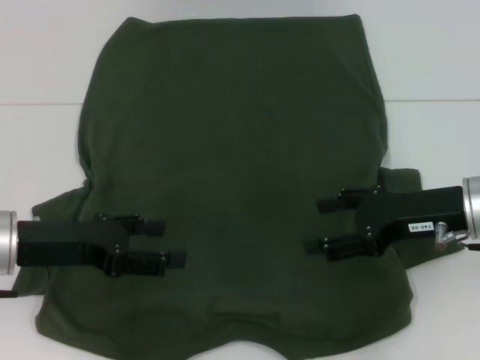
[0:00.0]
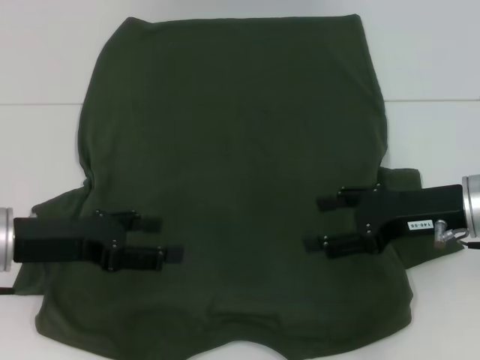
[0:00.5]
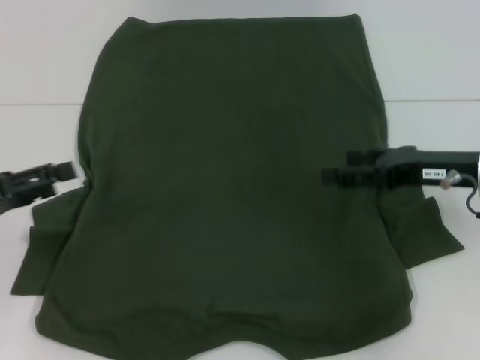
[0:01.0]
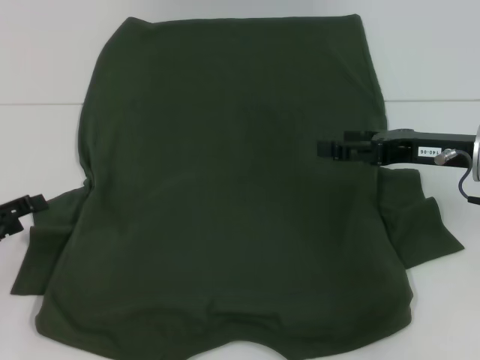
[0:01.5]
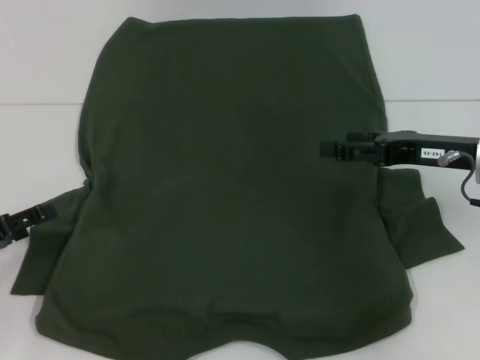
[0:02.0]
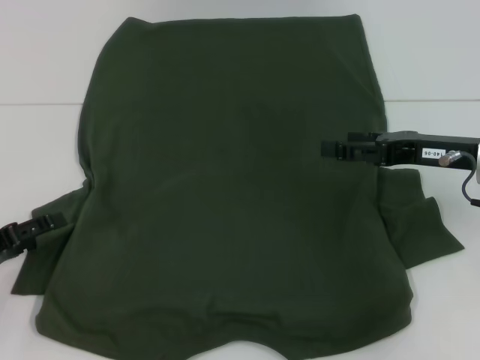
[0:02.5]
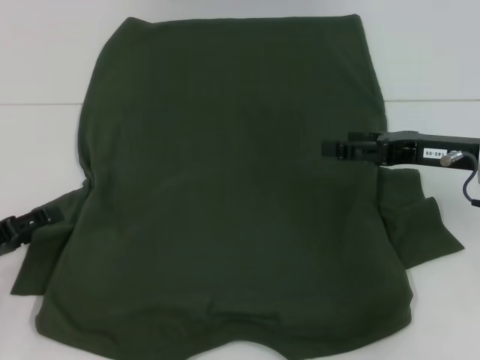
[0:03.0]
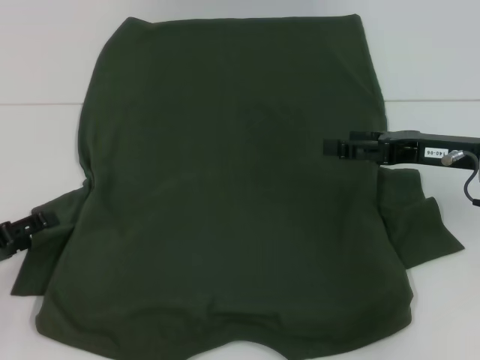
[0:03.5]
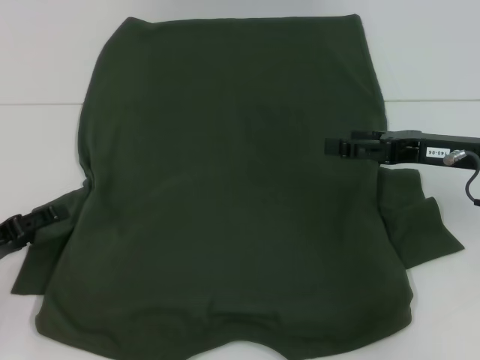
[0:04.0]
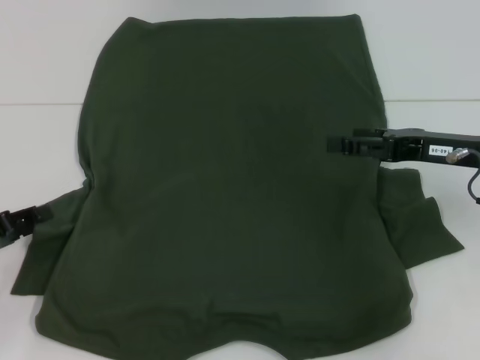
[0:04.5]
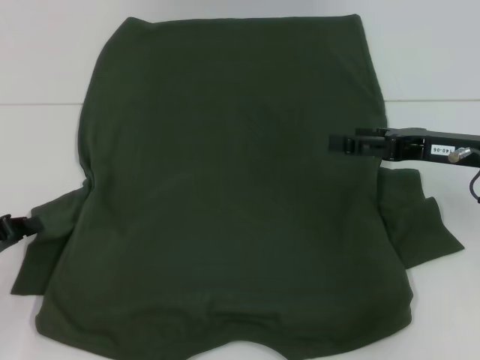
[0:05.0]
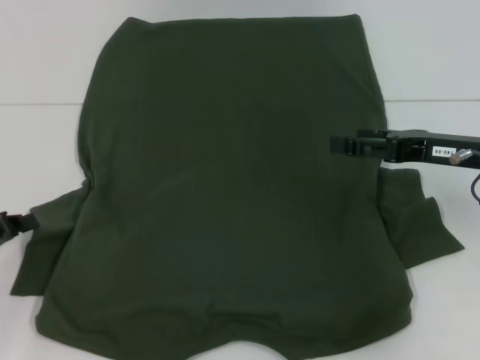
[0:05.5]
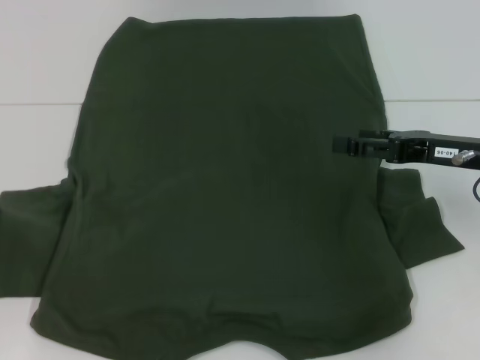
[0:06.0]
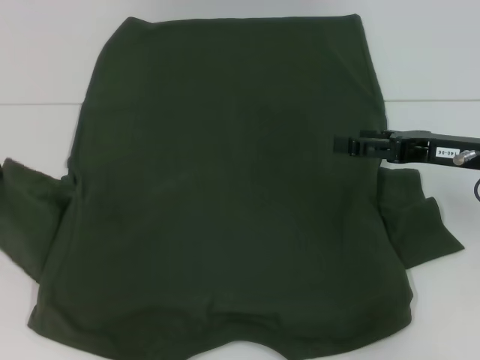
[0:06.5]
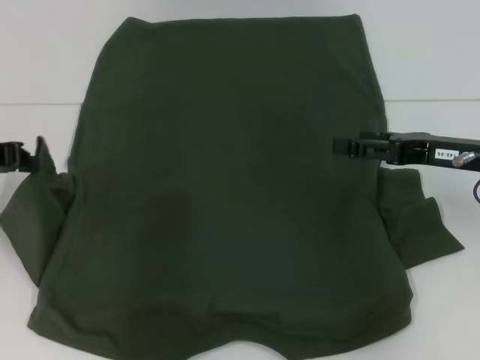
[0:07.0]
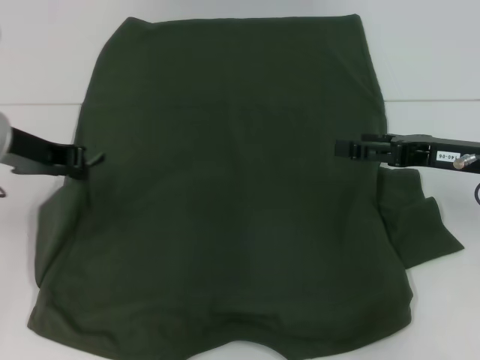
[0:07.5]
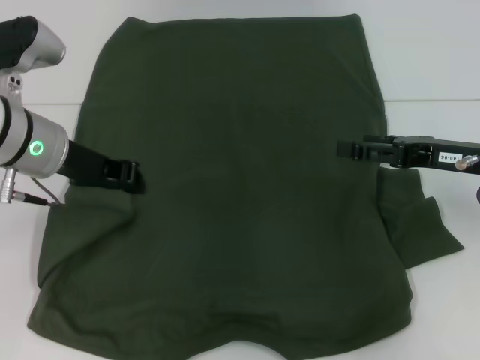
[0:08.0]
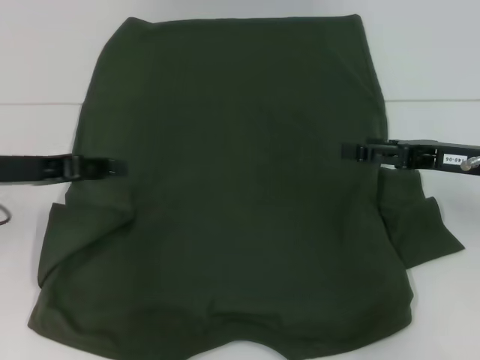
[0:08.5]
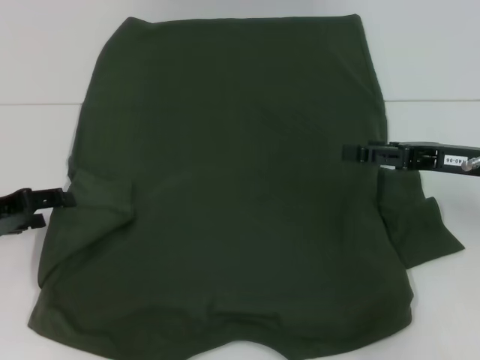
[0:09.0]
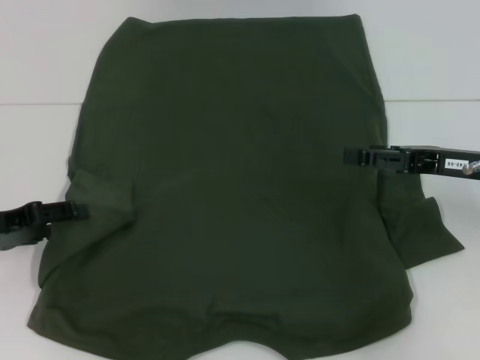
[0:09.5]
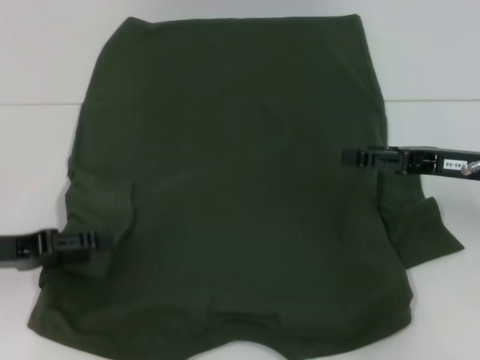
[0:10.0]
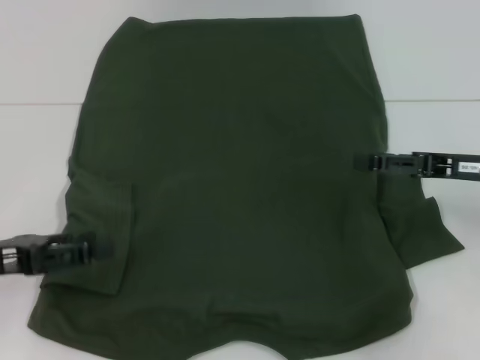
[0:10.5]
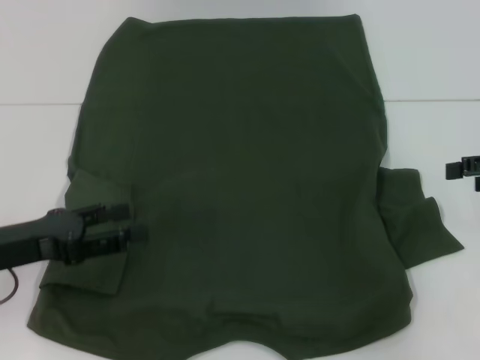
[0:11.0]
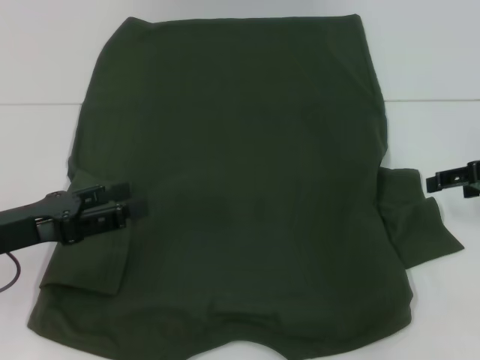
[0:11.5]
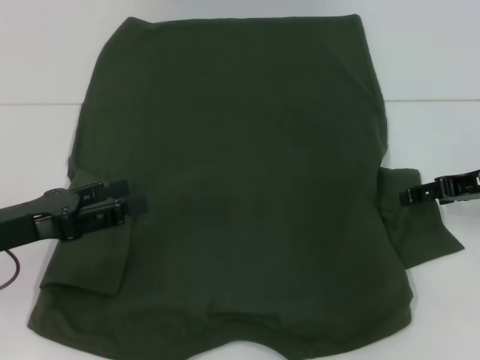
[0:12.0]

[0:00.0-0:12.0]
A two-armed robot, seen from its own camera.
Step, 0:00.0 to 0:10.5: Fold the bottom left sleeve with your left hand.
0:00.0 to 0:02.0: The left gripper heads to the left and downward, covering roughly 10 cm.
0:02.0 to 0:04.0: Neither gripper changes place.
0:04.0 to 0:06.0: The left gripper shifts by some 5 cm, and closes its fingers.
0:06.0 to 0:08.0: The left gripper goes about 20 cm to the right, forward and upward.
0:08.0 to 0:10.0: The left gripper goes some 15 cm to the left, backward and downward, and opens its fingers.
0:10.0 to 0:12.0: The right gripper reaches some 10 cm to the right, then returns.

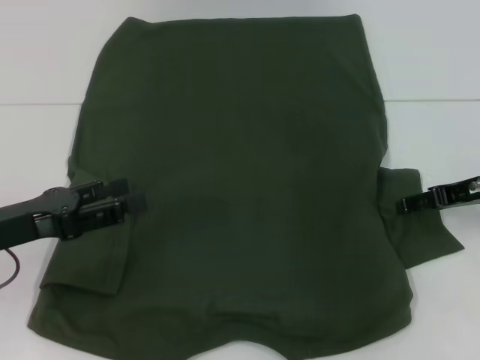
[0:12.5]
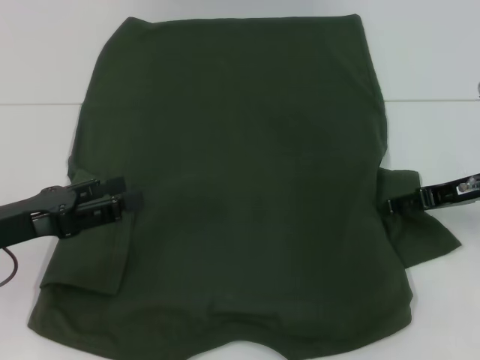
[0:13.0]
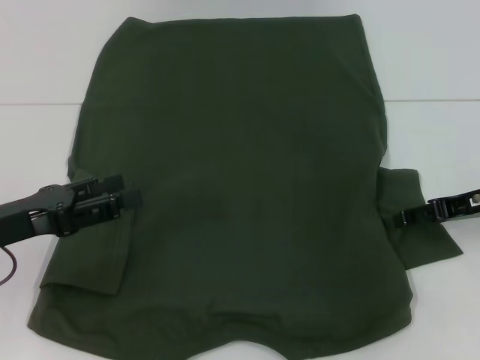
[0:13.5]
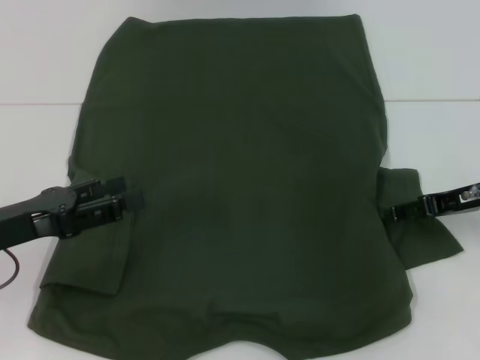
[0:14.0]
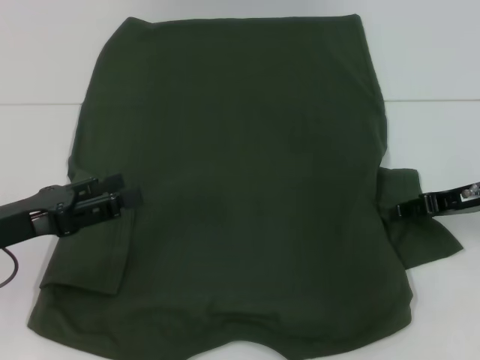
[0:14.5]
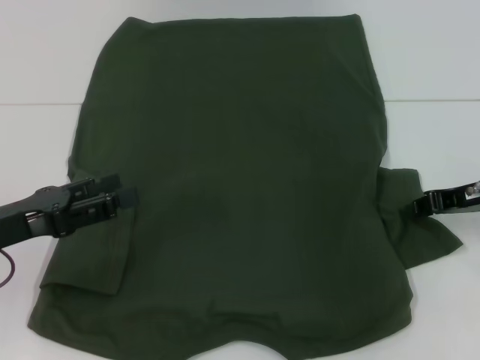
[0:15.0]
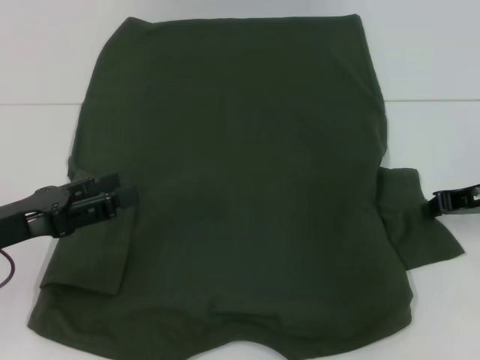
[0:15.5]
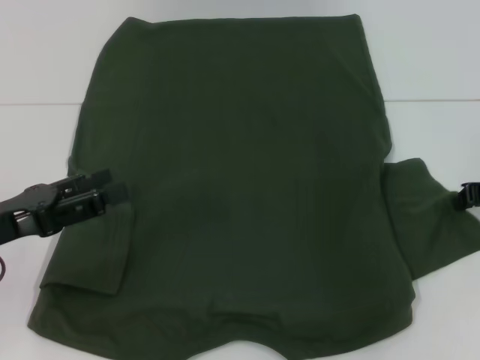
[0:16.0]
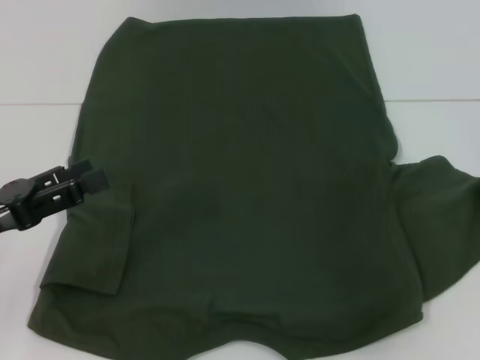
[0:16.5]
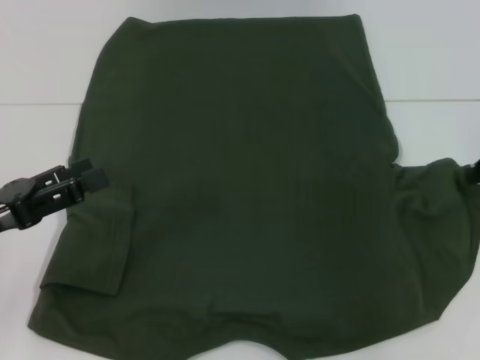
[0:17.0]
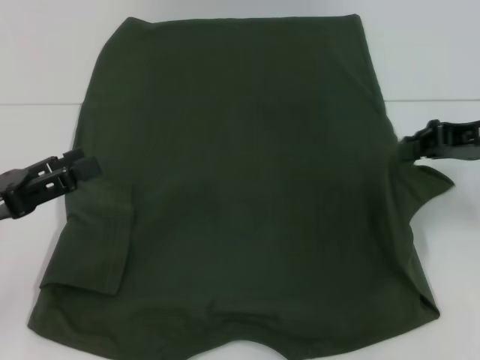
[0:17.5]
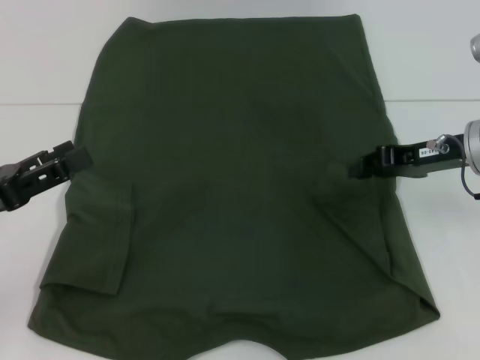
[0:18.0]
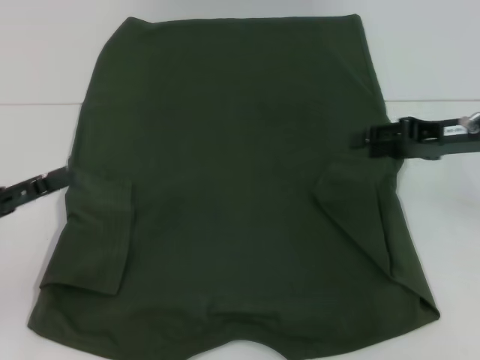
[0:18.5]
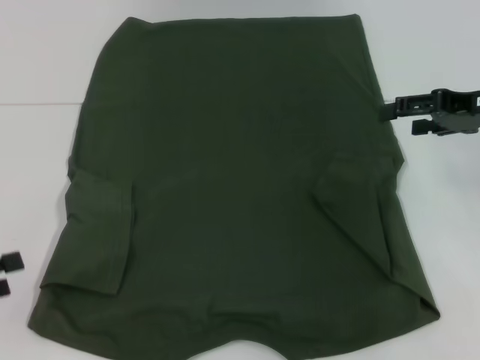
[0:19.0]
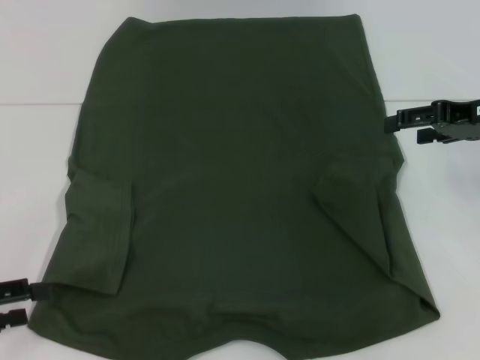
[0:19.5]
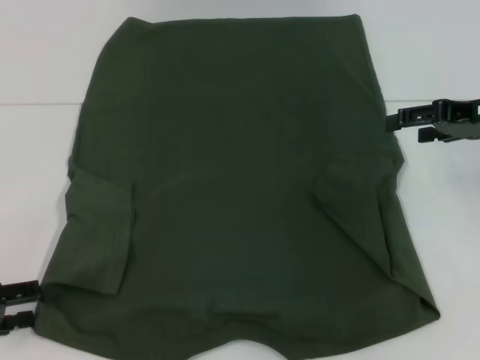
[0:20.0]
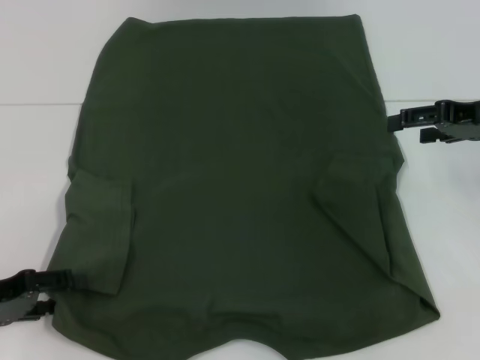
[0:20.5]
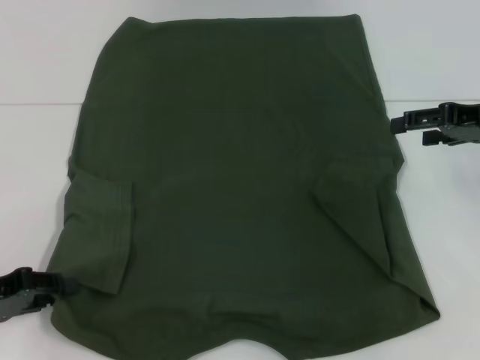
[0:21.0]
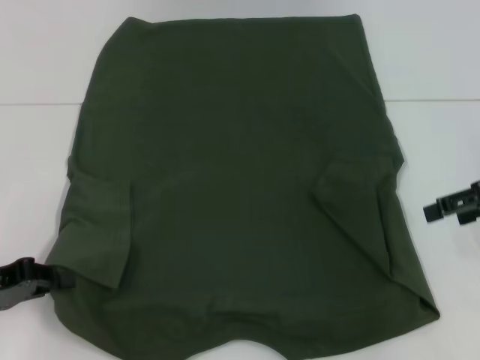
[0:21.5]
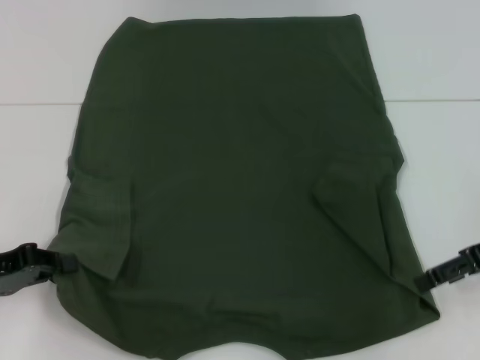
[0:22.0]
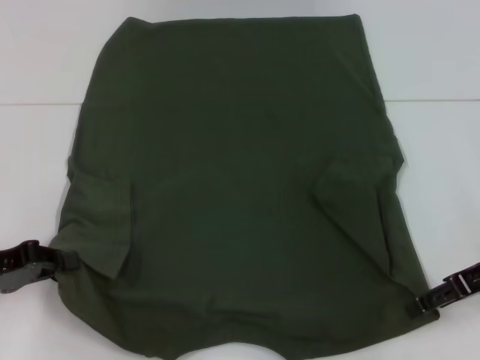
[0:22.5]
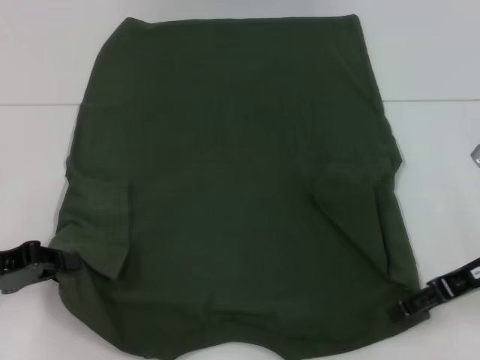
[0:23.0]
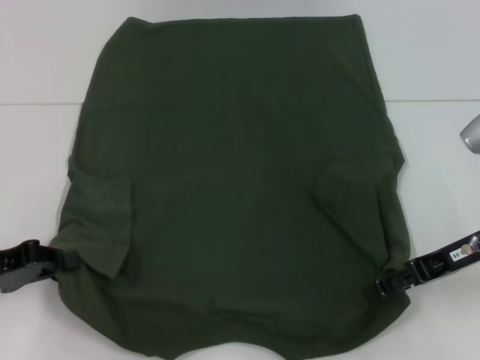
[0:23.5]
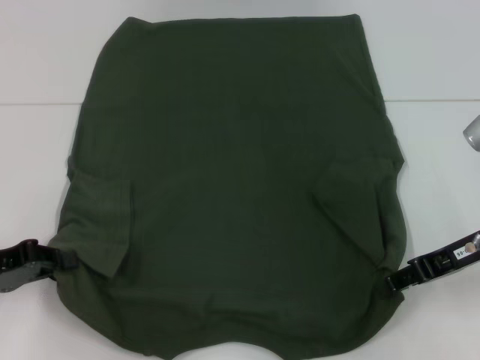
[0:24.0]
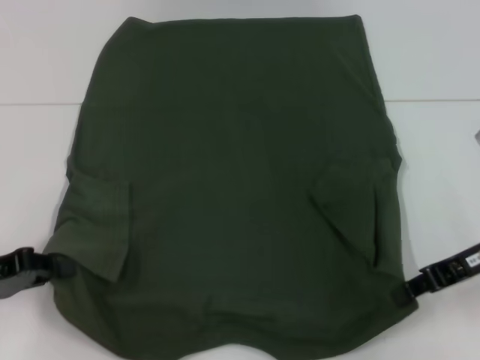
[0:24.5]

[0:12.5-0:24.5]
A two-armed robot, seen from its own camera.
Step, 0:12.5 to 0:18.5: Fold the bottom right sleeve with your right hand.
Step, 0:19.0 to 0:21.5: Grab the bottom left corner with your left hand.
Step, 0:22.0 to 0:23.5: Grab the bottom right corner with your right hand.
0:12.5 to 0:14.5: There are only small adjustments of the grippers.
0:14.5 to 0:16.5: The right gripper shifts approximately 5 cm to the right, and closes up.
0:16.5 to 0:18.5: The right gripper goes approximately 10 cm to the left, and opens its fingers.
0:18.5 to 0:20.5: The left gripper shifts about 5 cm downward. Meanwhile the right gripper opens up.
0:20.5 to 0:22.5: The left gripper closes its fingers. Meanwhile the right gripper travels backward and downward by roughly 10 cm.
0:22.5 to 0:24.5: The right gripper closes.

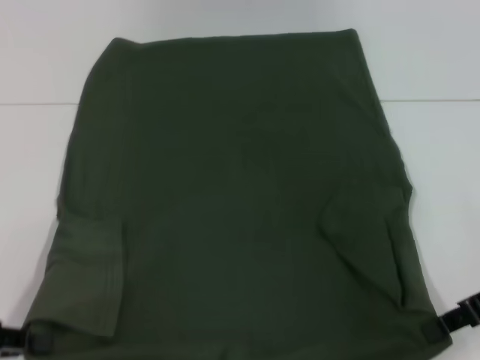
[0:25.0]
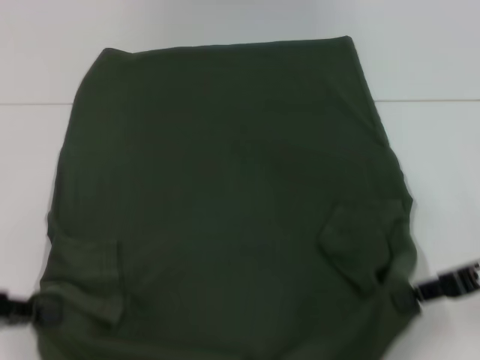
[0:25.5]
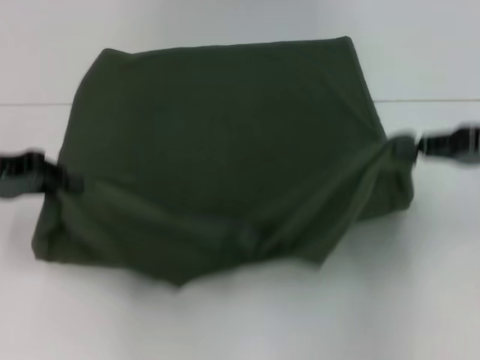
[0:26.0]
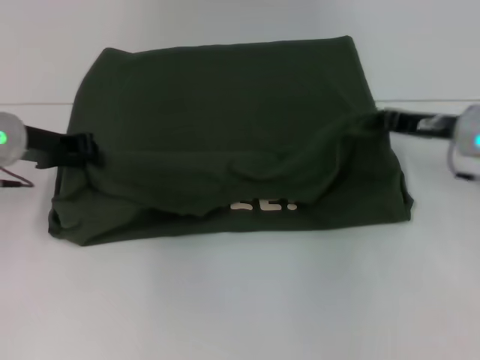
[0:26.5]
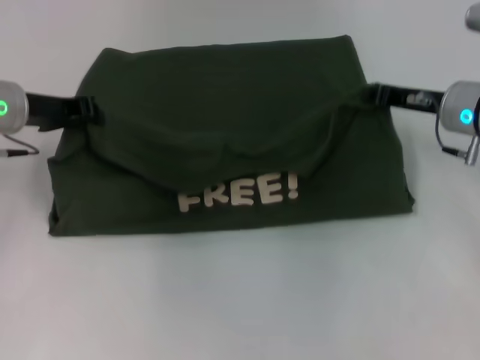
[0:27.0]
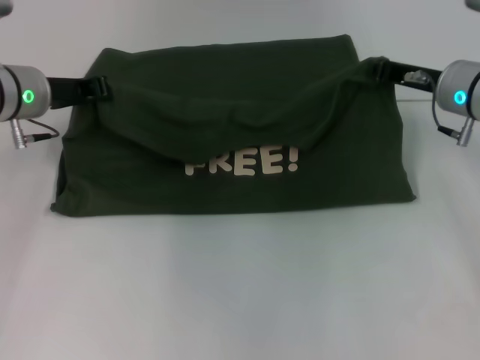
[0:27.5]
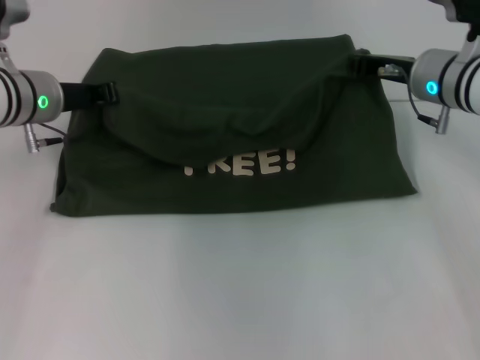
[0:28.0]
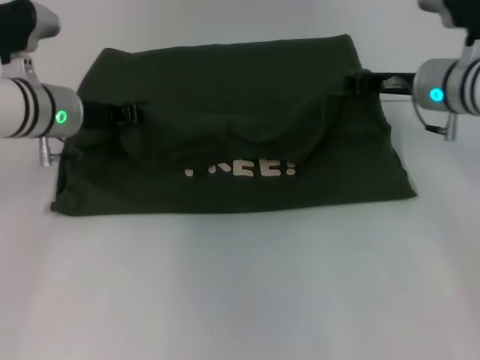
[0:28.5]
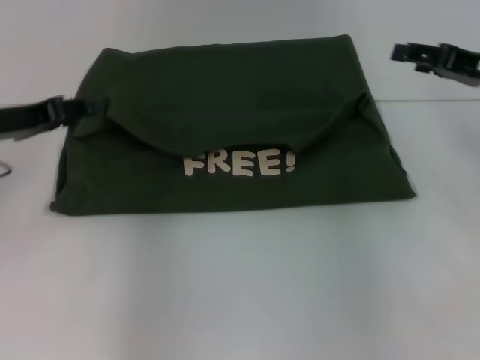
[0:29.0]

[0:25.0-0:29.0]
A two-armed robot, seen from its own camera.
Step, 0:25.0 to 0:28.5: Fold the clothes with your left hand.
Step, 0:25.0 to 0:28.5: Fold the clothes with your right hand.
0:25.0 to 0:27.0: The right gripper moves forward and to the left, approximately 15 cm. The left gripper shifts roughly 20 cm forward and to the right.
0:27.0 to 0:29.0: The right gripper shifts about 5 cm to the right. Meanwhile the left gripper moves backward, approximately 5 cm, and opens up.
